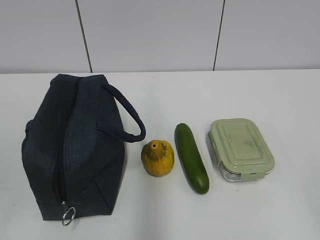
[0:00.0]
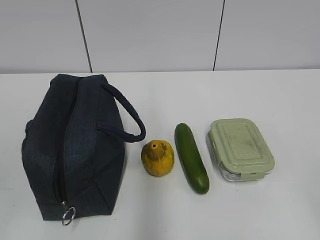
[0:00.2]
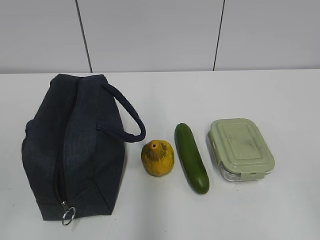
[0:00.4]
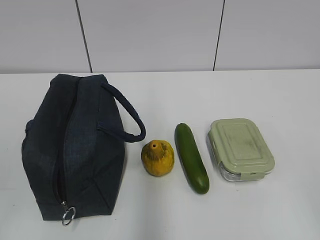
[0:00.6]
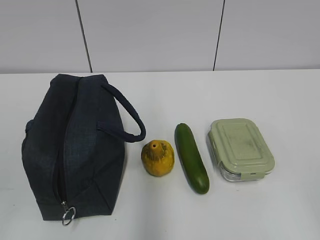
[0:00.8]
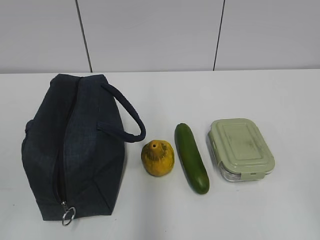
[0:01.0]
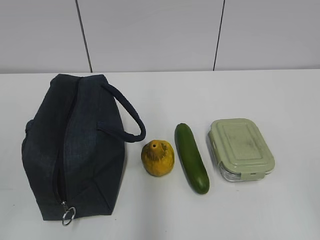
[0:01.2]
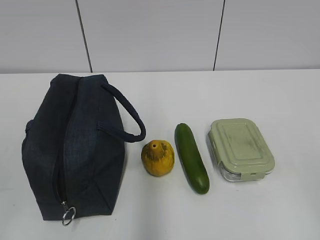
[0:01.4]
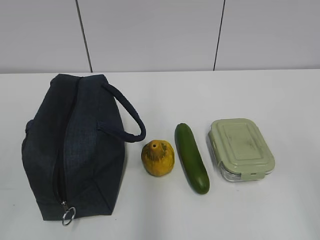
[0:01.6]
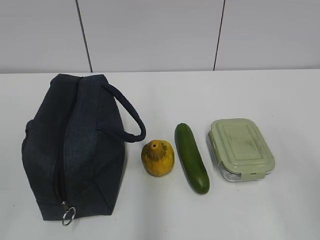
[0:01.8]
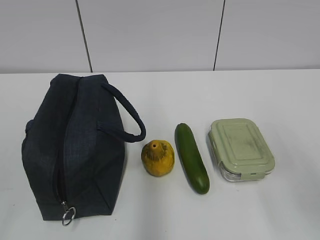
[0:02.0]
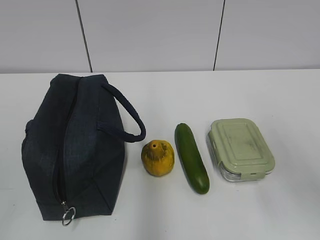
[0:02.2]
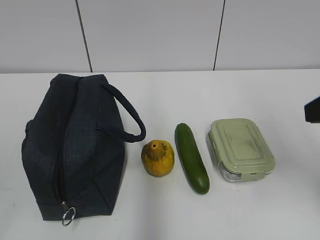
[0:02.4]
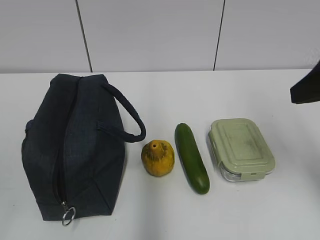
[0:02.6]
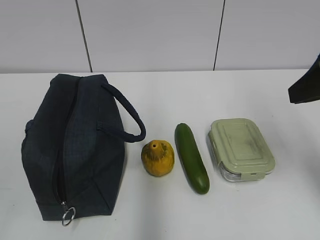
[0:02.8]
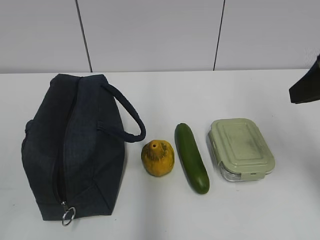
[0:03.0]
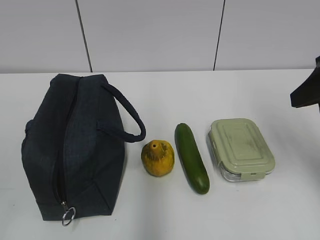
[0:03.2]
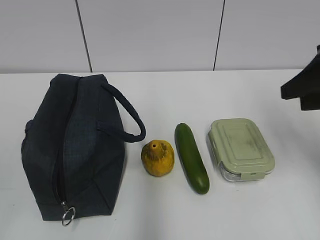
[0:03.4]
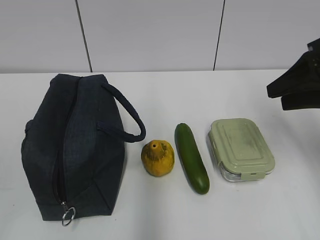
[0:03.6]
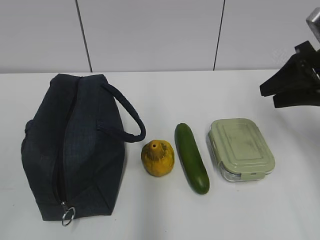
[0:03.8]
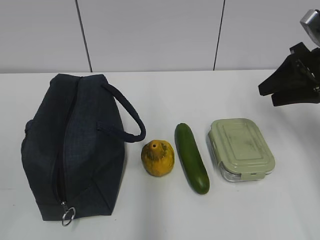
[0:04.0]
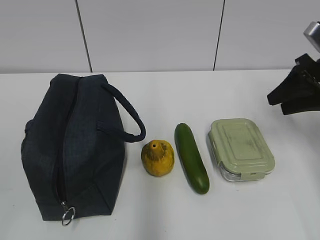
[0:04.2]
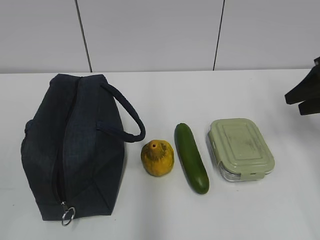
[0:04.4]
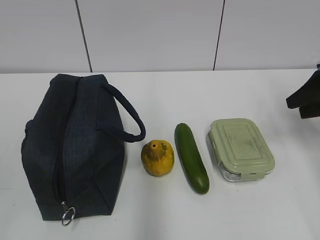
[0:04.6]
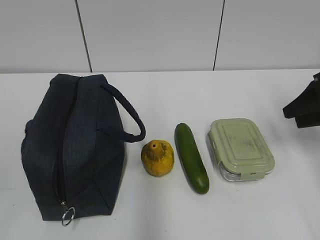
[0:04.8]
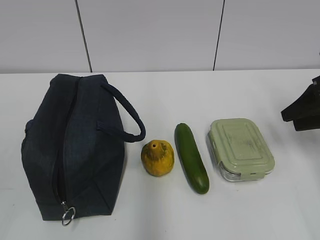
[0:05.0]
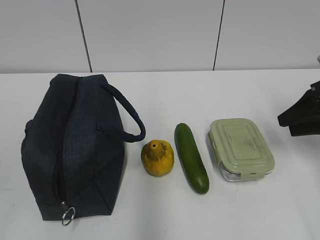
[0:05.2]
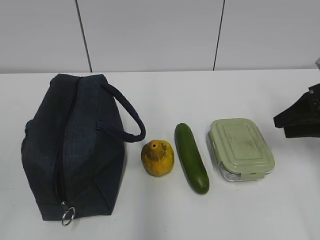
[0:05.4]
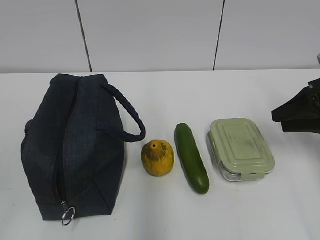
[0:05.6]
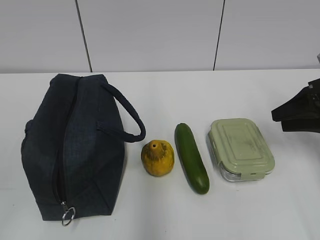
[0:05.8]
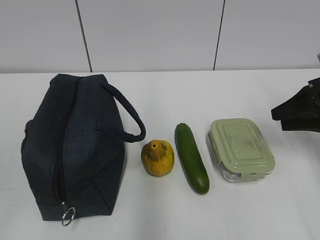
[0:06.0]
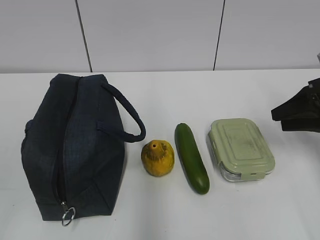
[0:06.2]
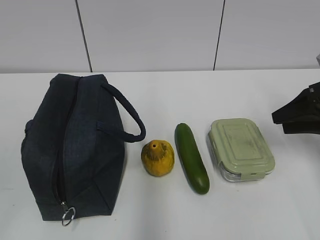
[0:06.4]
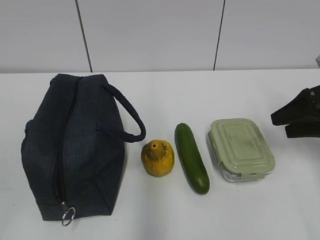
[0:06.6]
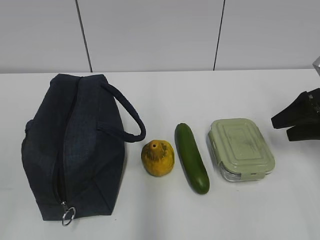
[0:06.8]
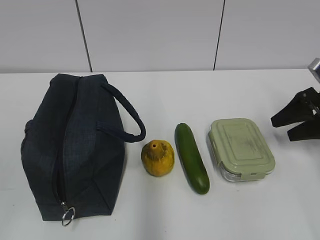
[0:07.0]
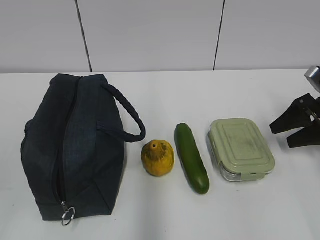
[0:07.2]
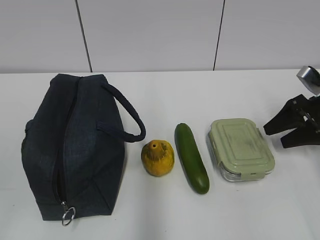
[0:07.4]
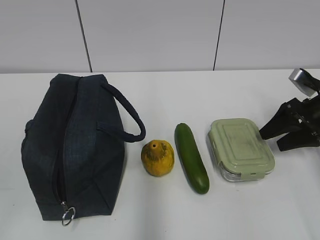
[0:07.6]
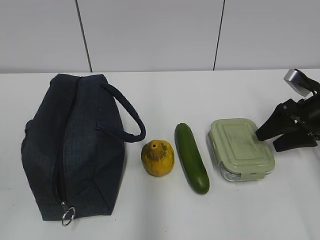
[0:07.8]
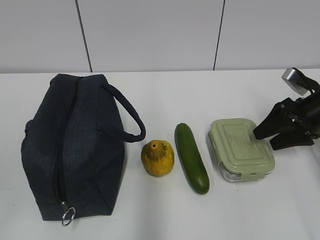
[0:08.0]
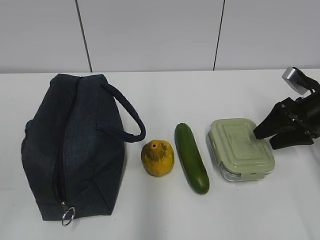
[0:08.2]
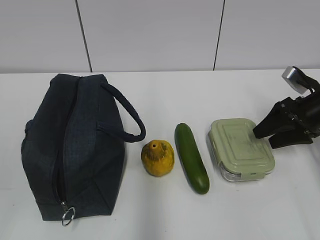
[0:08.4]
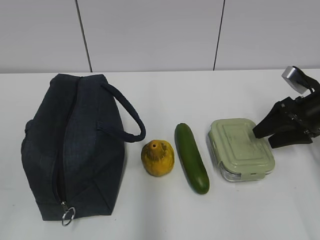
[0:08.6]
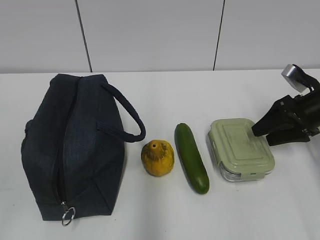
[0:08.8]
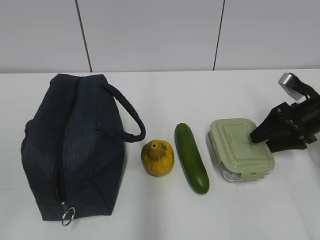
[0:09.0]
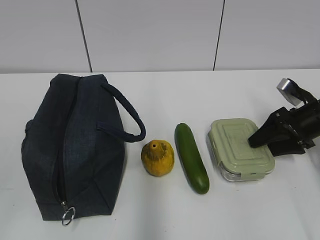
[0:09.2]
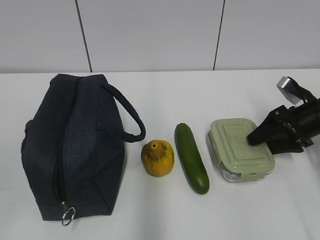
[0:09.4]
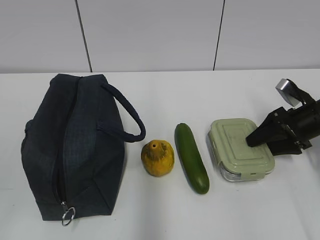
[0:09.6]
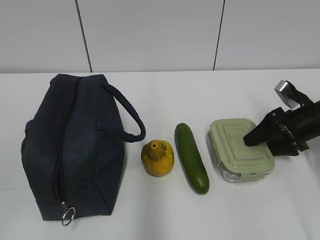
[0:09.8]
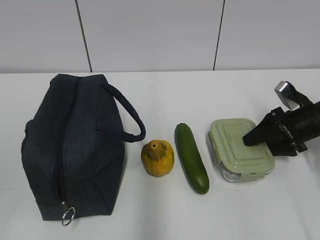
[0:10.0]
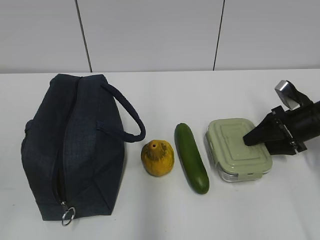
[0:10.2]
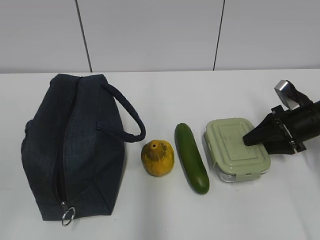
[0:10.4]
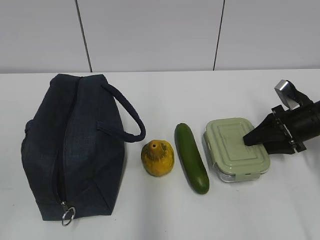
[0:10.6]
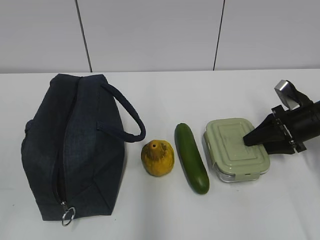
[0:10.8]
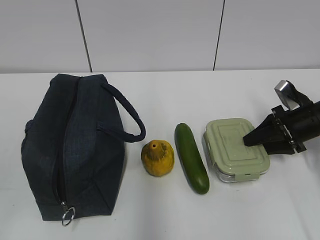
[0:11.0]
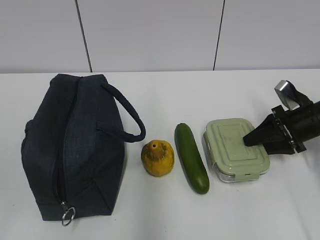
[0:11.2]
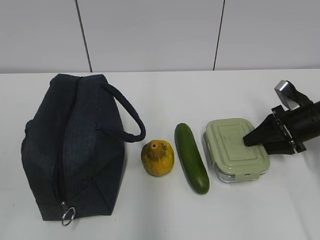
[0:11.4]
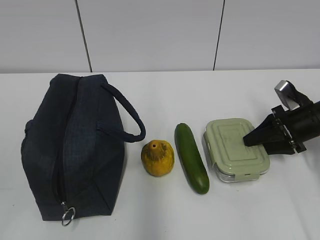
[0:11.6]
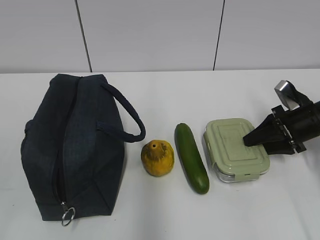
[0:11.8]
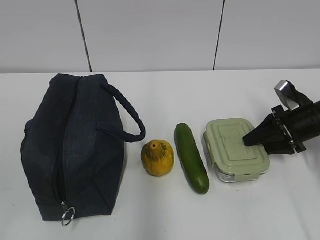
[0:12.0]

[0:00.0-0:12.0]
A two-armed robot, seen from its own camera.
0:01.6 to 0:03.0: The right gripper travels forward by roughly 20 cm.
0:03.0 to 0:04.4: The right gripper heads forward, to the right and downward, covering about 20 cm.
0:04.4 to 0:06.0: The grippers make only small movements.
0:06.0 to 0:07.6: The right gripper changes place by roughly 5 cm.
0:07.6 to 0:10.4: The grippers make only small movements.
0:10.4 to 0:12.0: The two grippers keep their place.

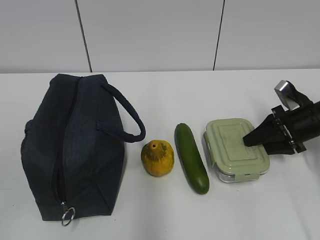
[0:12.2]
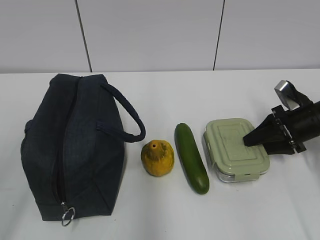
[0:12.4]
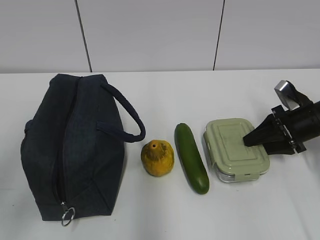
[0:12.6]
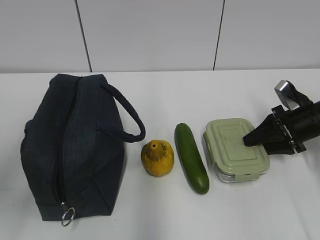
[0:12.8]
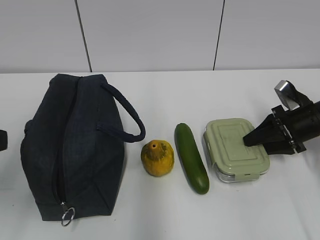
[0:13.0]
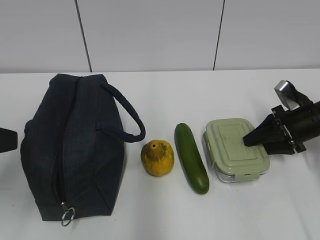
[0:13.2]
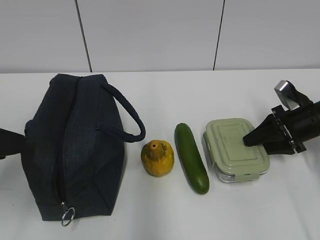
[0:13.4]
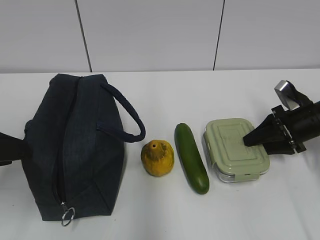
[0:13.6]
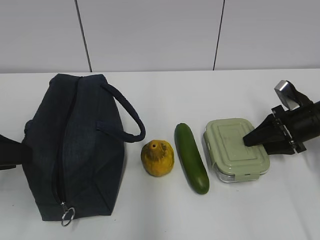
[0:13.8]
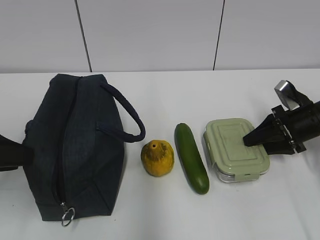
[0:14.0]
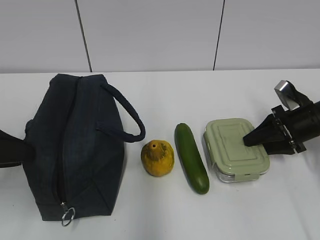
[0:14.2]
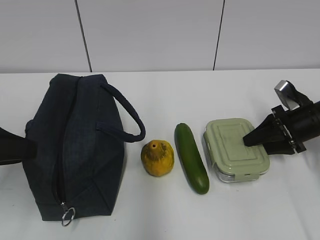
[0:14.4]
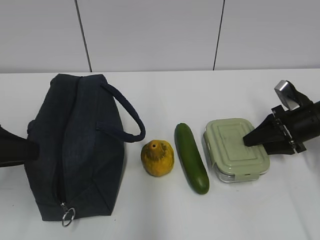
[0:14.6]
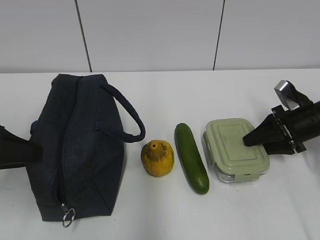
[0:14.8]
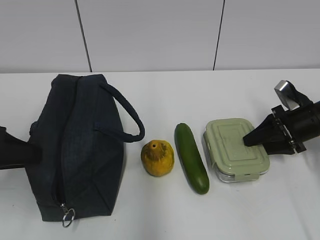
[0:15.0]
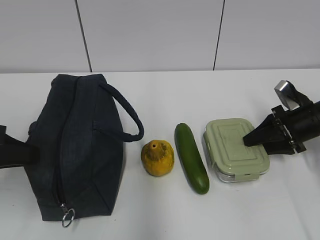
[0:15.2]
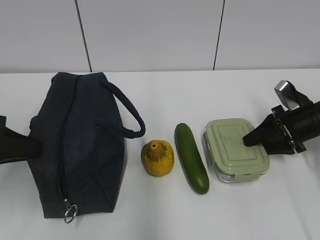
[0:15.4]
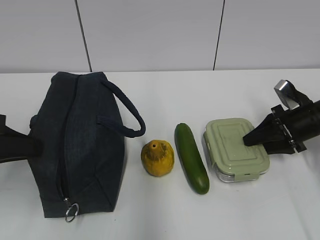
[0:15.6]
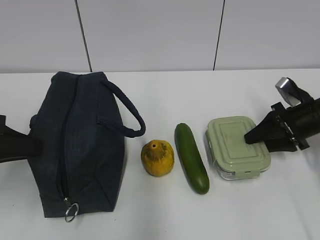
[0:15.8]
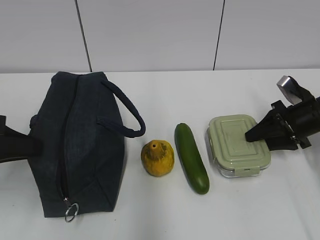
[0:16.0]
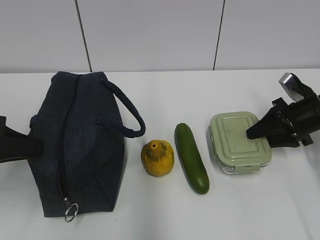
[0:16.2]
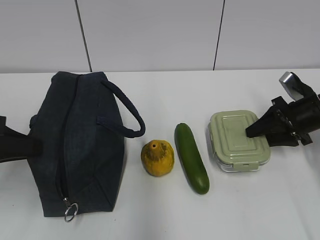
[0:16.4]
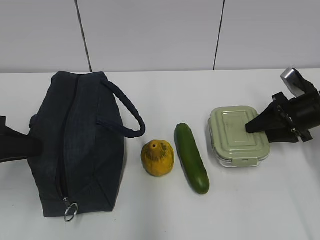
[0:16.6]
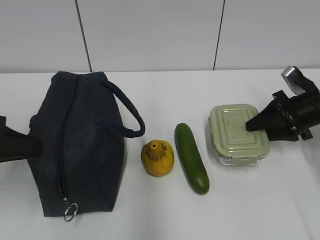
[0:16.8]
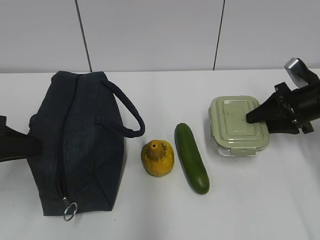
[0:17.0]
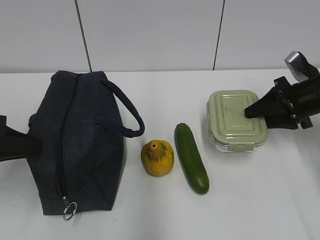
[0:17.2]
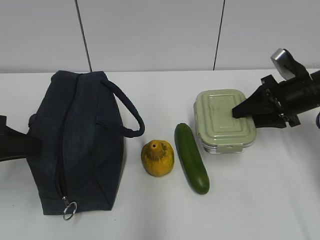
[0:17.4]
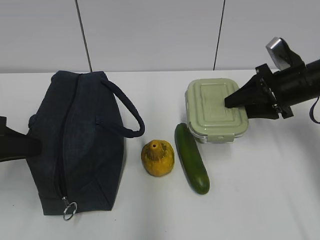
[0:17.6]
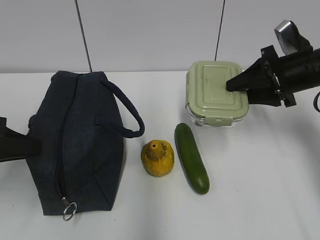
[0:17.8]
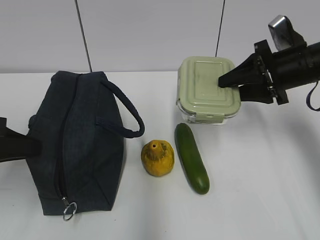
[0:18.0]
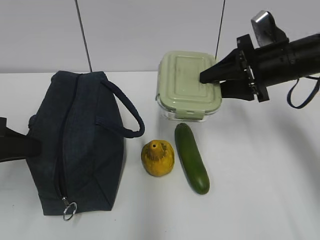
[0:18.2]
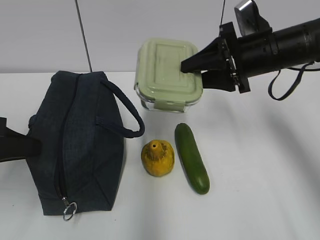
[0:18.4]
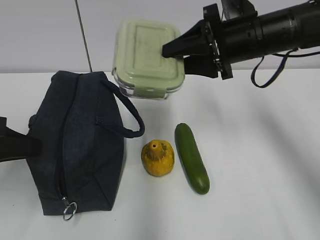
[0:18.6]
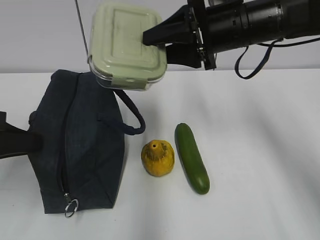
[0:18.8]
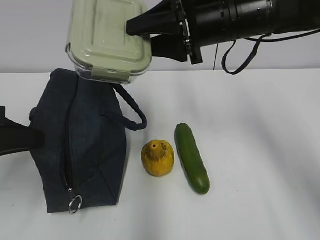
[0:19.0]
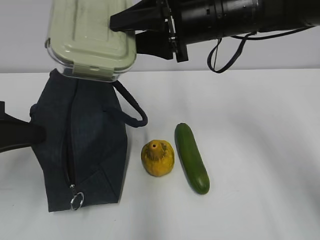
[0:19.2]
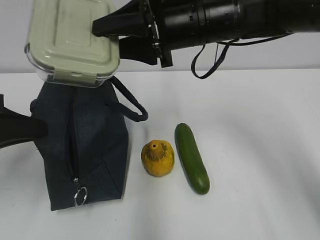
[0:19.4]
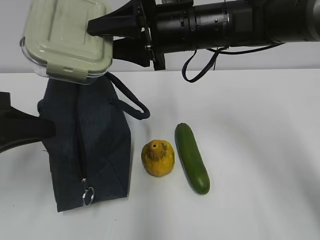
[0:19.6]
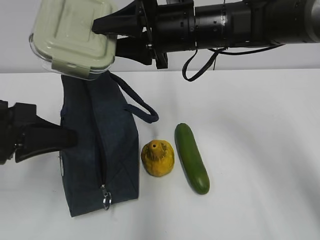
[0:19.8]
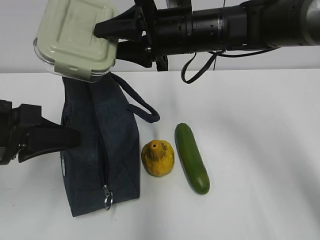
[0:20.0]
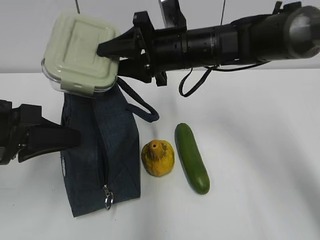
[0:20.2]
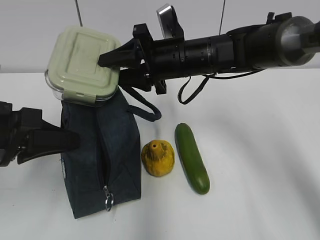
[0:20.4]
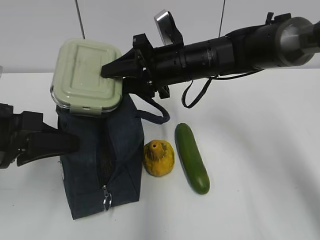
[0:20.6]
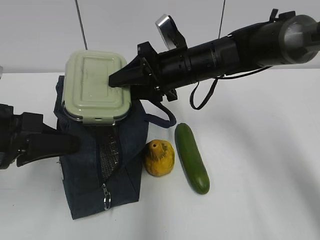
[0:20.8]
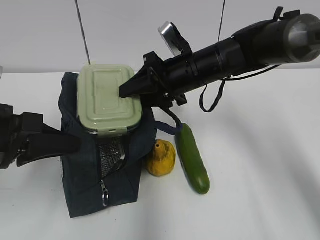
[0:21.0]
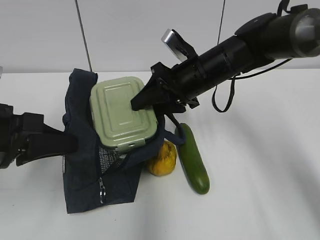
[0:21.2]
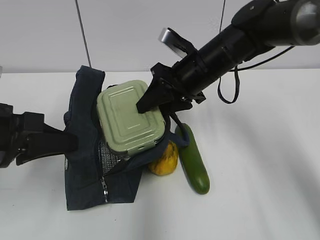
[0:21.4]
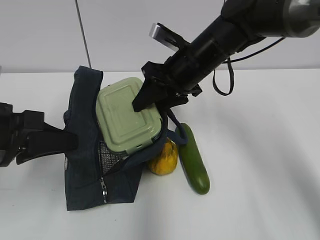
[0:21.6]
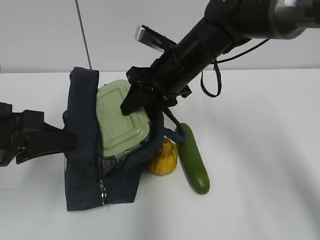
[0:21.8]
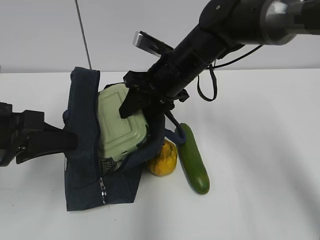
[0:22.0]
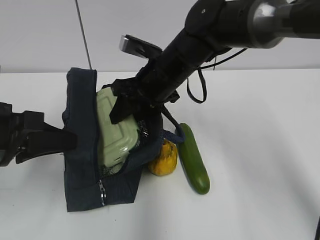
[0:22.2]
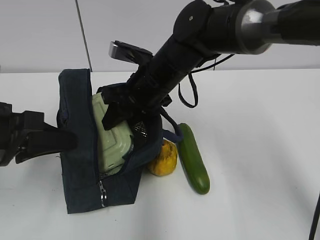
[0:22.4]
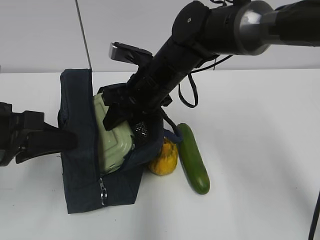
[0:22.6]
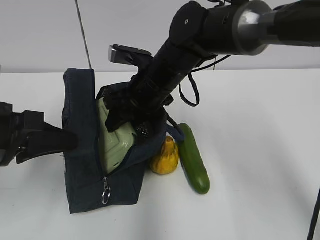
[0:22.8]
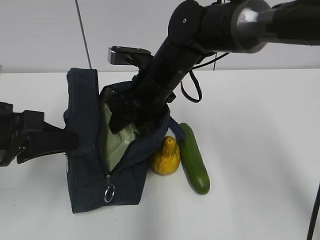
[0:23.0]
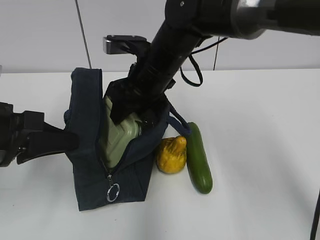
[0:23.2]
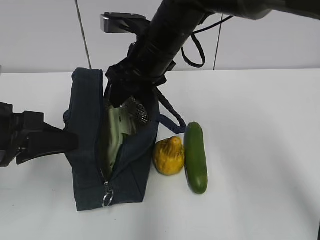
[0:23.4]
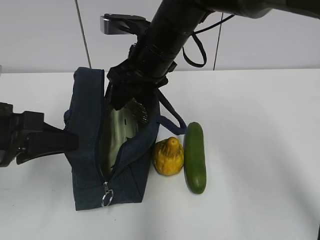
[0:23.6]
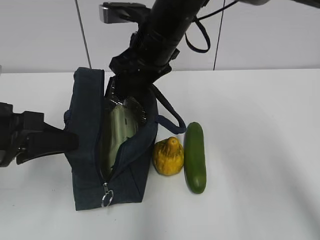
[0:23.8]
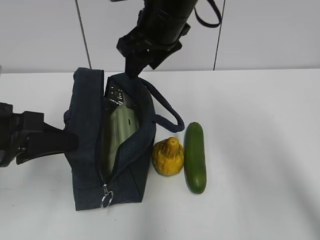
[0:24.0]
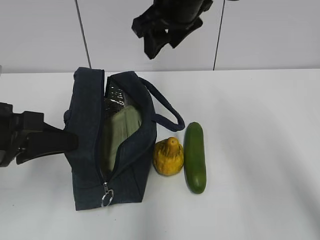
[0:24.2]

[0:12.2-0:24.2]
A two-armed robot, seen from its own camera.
Step, 0:20.4 to 0:23.2: Place it into the bag with your right hand.
0:12.2 to 0:13.8: The left gripper travels forward by roughly 15 cm.
0:13.8 to 0:15.2: The left gripper closes its fingers.
0:15.2 to 0:16.6: The grippers make only small movements.
0:16.6 to 0:18.2: The right gripper is displaced upward and to the left by some 15 cm.
0:18.2 to 0:19.8: The right gripper heads to the left, covering approximately 15 cm.
0:19.8 to 0:21.2: The right gripper is displaced downward by some 10 cm.
0:21.2 to 0:22.6: The right gripper goes some 10 cm to the left.
0:22.6 to 0:24.2: The right gripper heads upward, covering about 15 cm.
